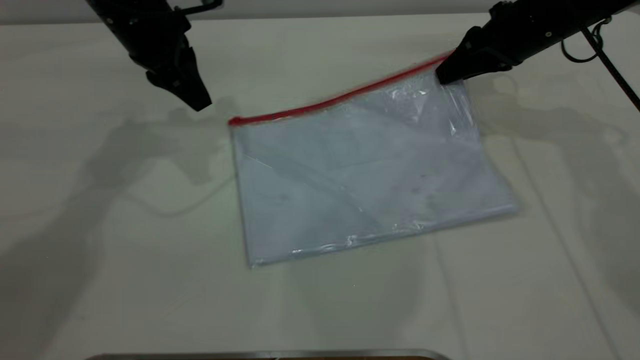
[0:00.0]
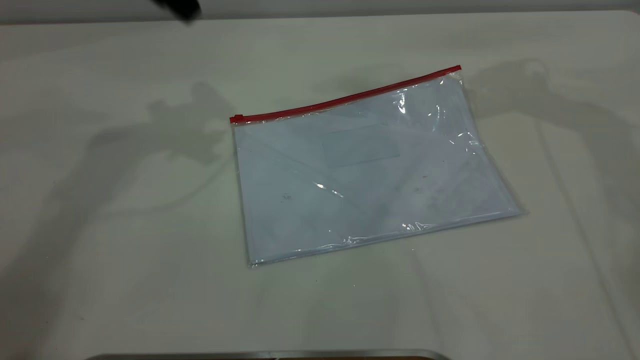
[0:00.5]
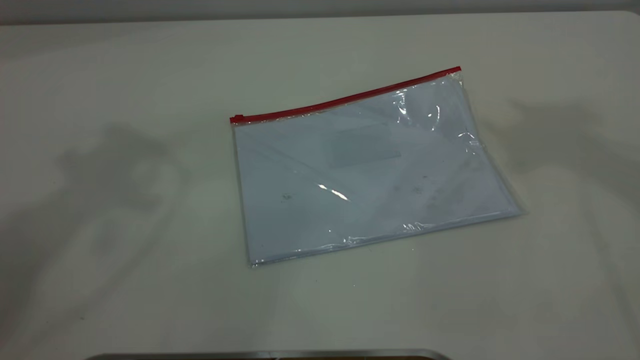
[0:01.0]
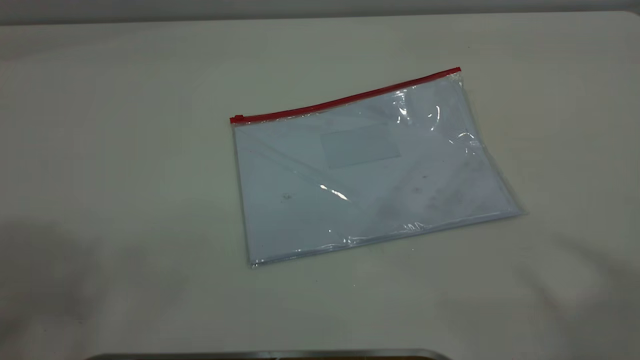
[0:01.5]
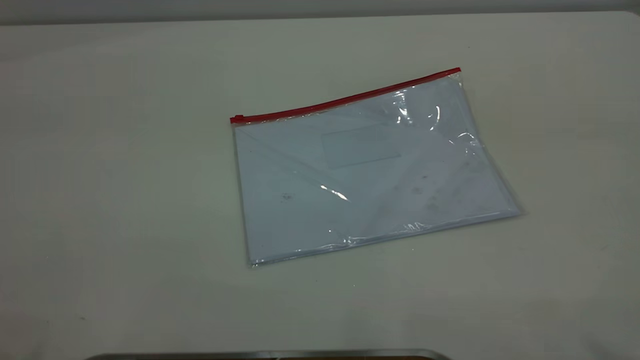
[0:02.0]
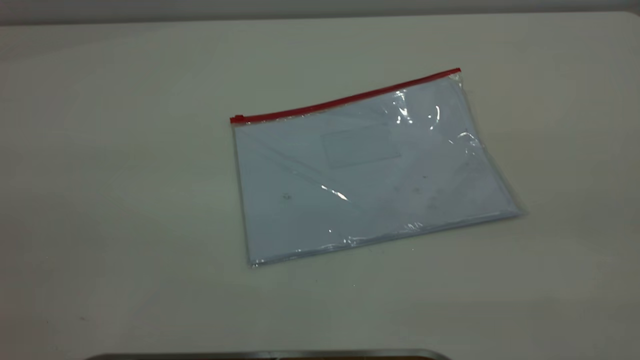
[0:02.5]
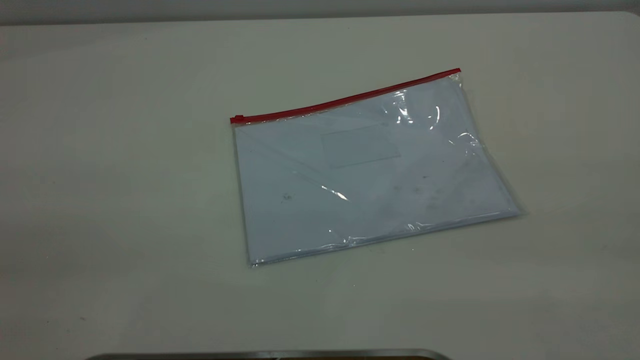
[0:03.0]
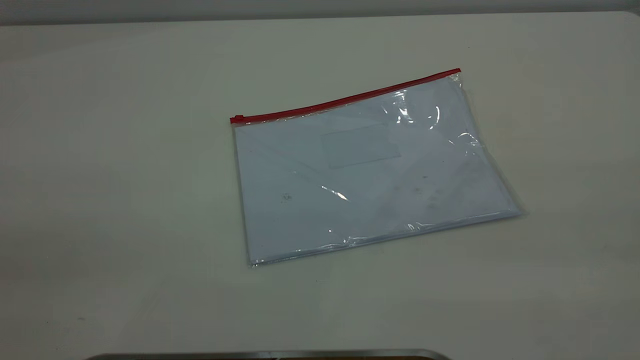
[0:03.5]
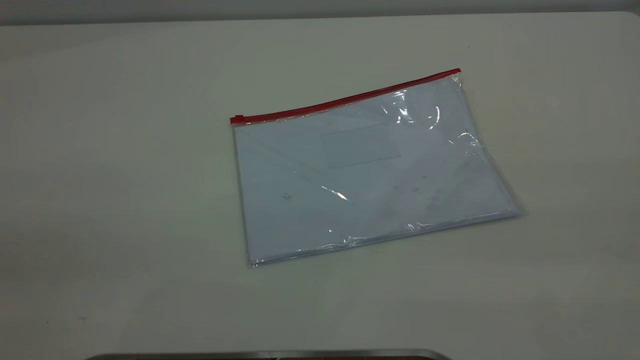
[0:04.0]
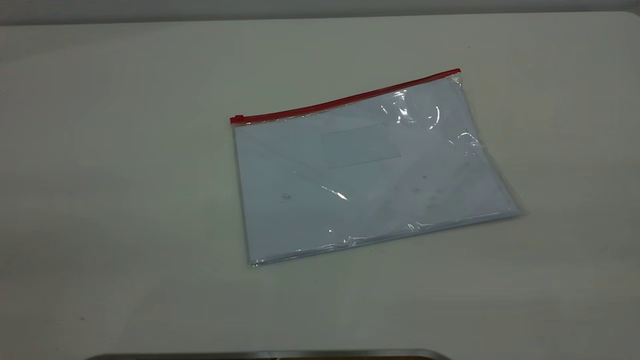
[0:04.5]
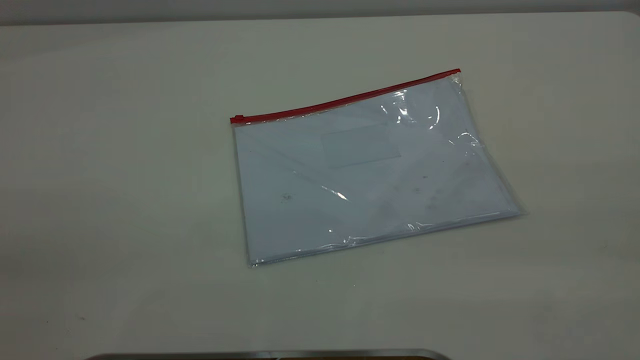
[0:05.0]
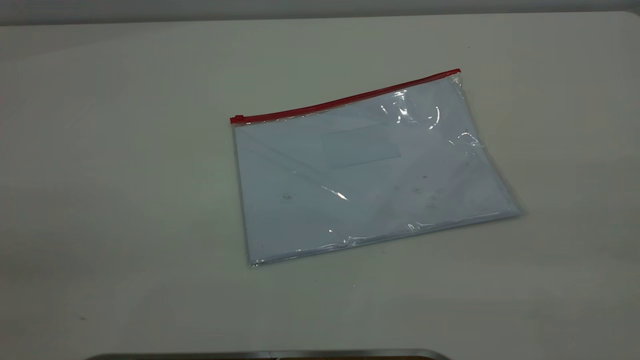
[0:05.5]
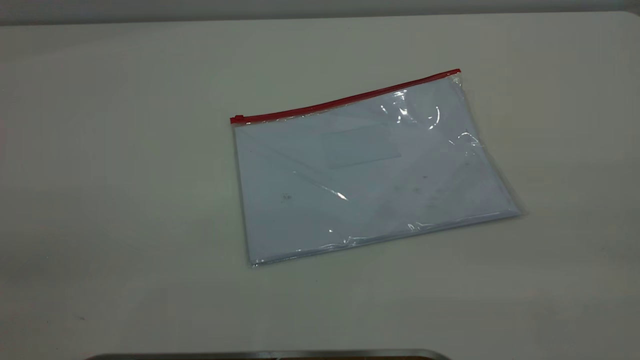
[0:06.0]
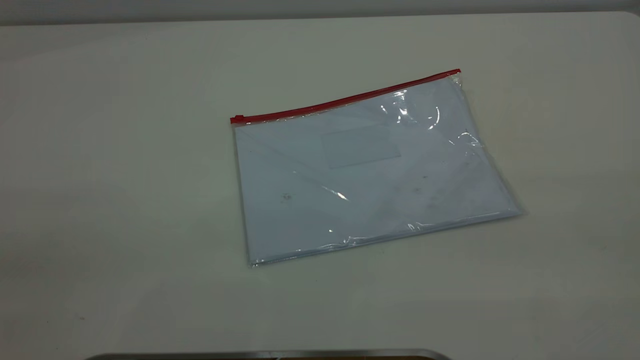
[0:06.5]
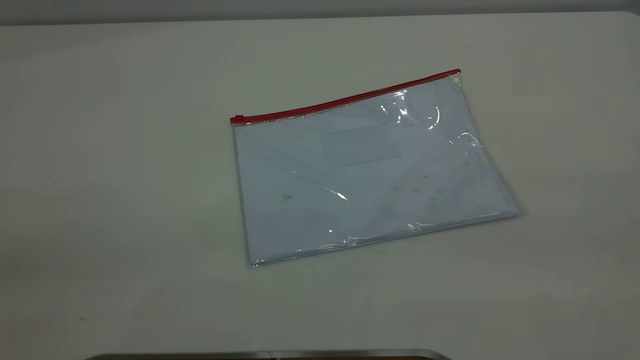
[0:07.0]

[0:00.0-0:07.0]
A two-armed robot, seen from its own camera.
Step, 0:00.0 to 0:00.5: Place the transparent plastic bag.
0:00.0 to 0:02.0: The two grippers go some 50 cm backward and upward. The right gripper opens its fingers; the left gripper opens up.

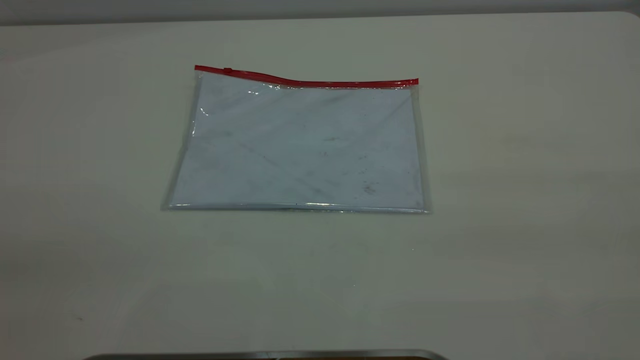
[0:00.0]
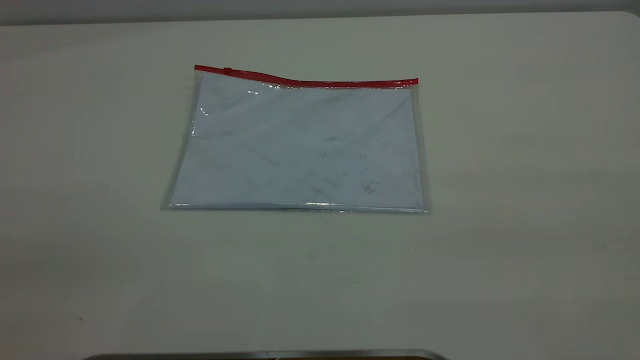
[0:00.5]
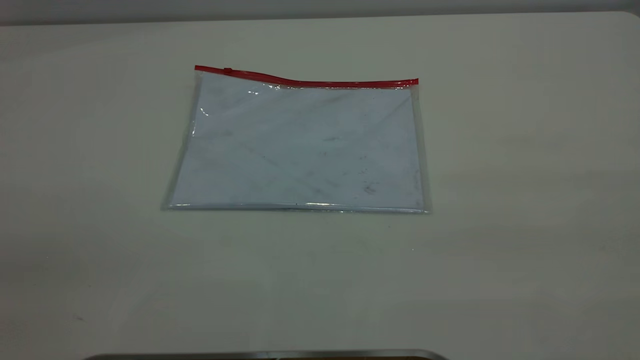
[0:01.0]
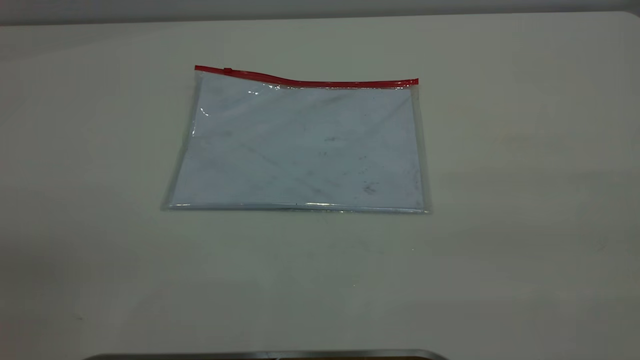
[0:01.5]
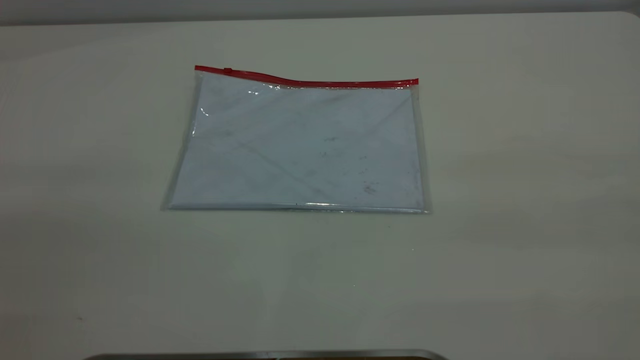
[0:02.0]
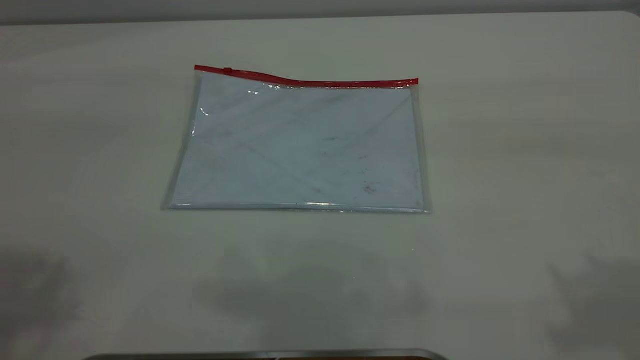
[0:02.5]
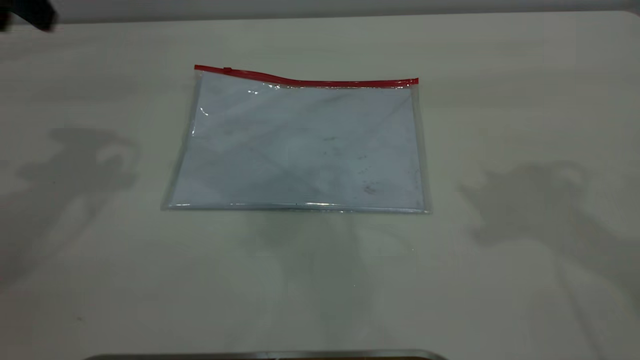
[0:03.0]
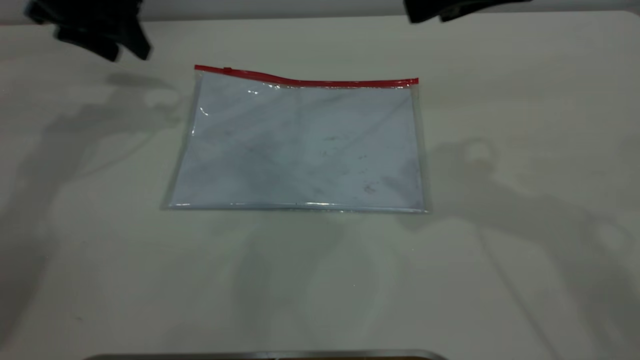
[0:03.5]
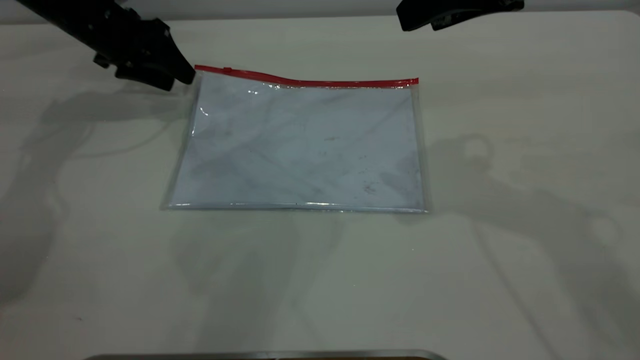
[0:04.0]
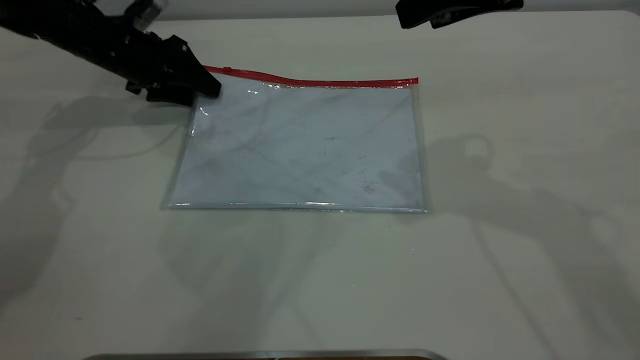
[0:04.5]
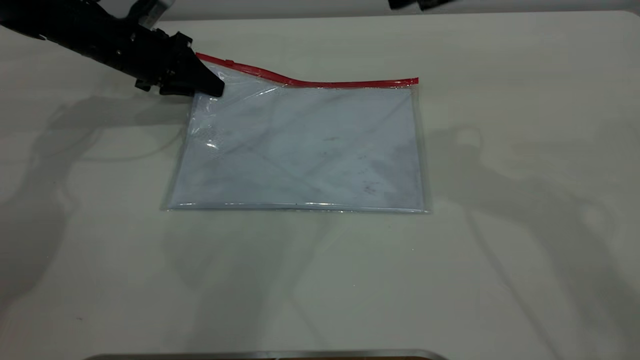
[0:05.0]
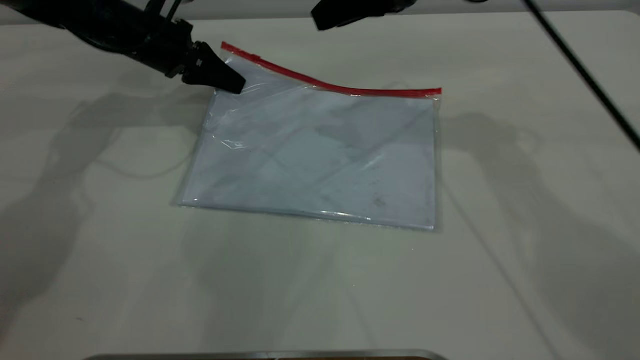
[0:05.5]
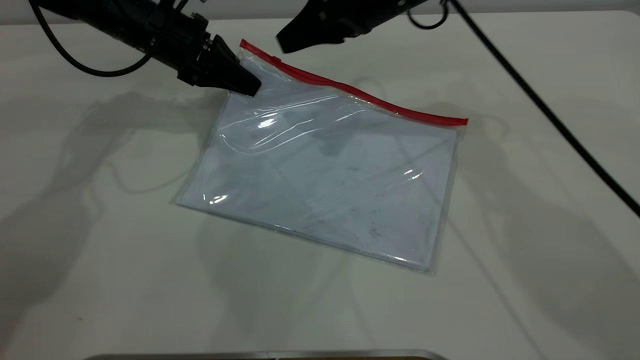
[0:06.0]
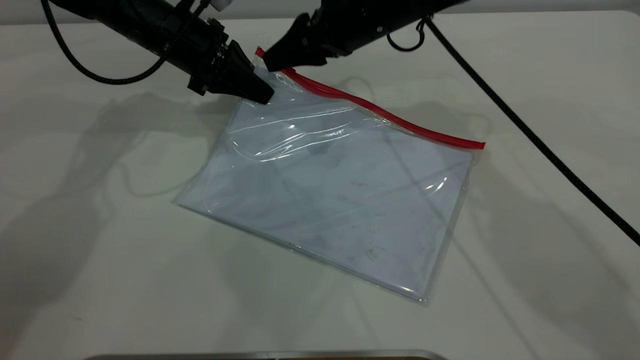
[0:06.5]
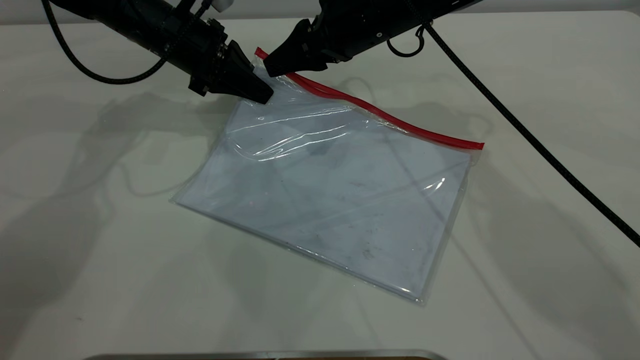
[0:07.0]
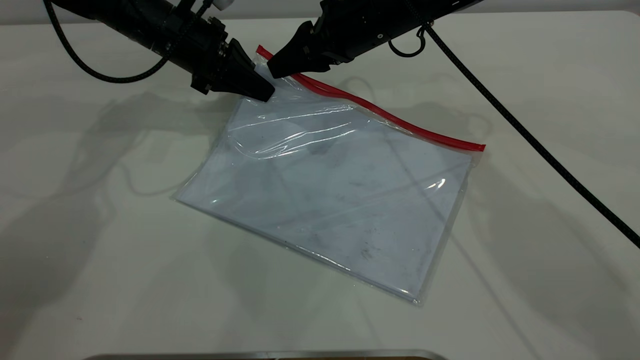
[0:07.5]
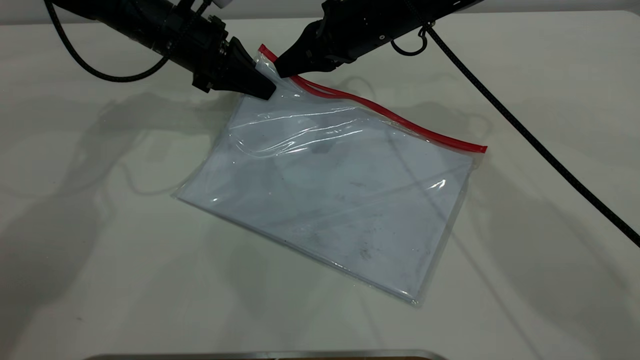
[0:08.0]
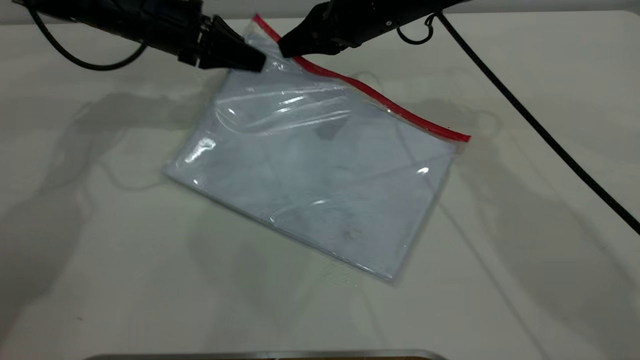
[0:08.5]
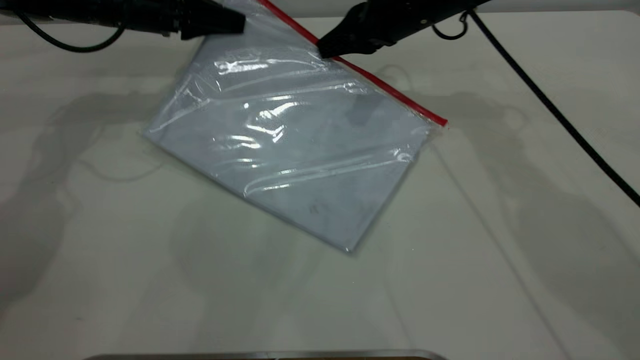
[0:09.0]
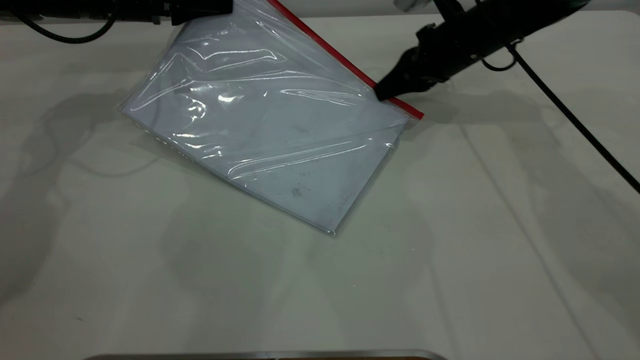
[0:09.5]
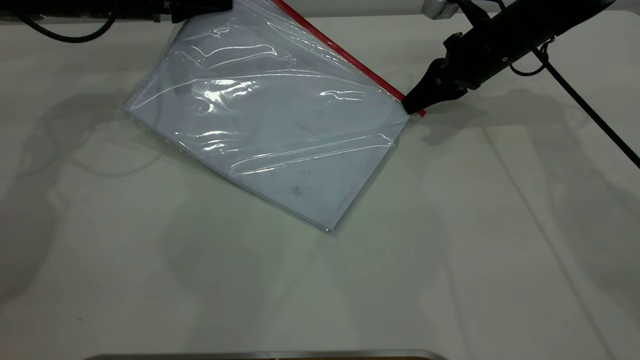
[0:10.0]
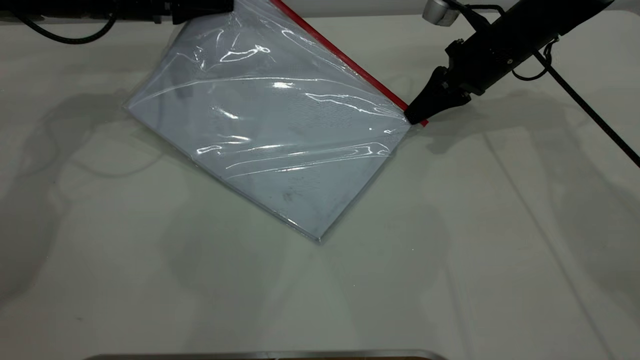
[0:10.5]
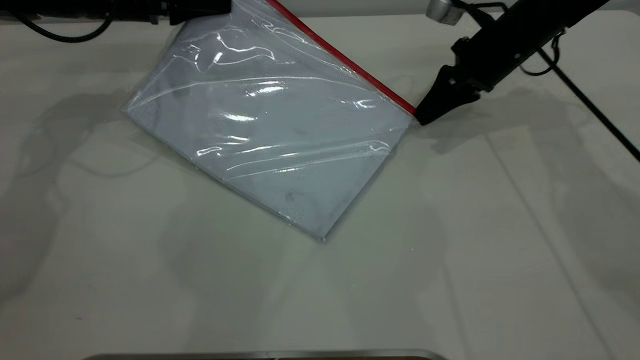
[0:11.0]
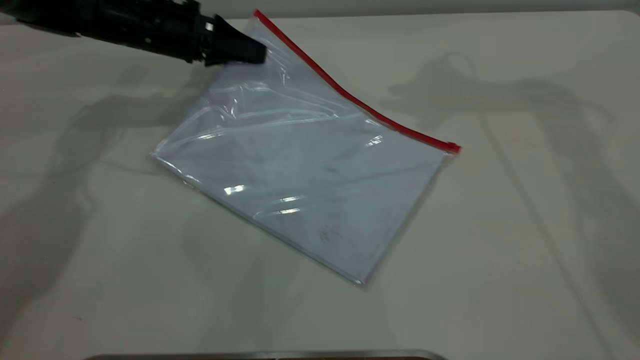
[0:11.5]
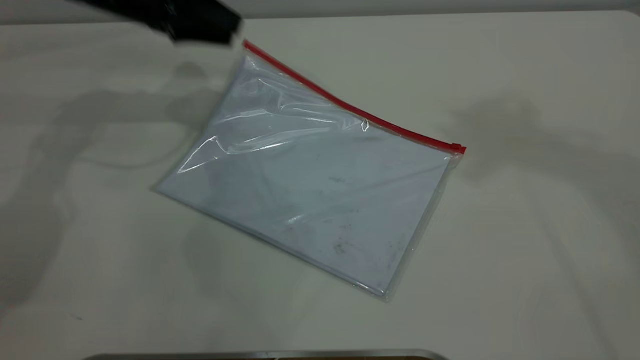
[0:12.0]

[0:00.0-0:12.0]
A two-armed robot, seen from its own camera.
Step, 0:00.0 to 0:05.5: Pick up the transparent plastic bag with the left gripper.
Step, 0:06.0 to 0:11.0: Pulling up the zipper on the transparent plastic bag with the right gripper to close it.
Step, 0:11.5 to 0:12.0: Place the transparent plastic bag.
0:02.0 to 0:04.0: The left gripper is displaced forward and downward by some 60 cm. The right gripper travels forward by roughly 30 cm.
0:04.0 to 0:06.0: The left gripper goes approximately 10 cm to the right, and closes its fingers. Meanwhile the right gripper heads forward, downward and to the left, covering about 20 cm.
0:06.0 to 0:08.0: The right gripper closes.
0:08.0 to 0:10.0: The left gripper is displaced to the left by about 5 cm. The right gripper shifts about 15 cm to the right.
0:10.0 to 0:12.0: The right gripper is displaced upward by about 50 cm, and opens, while the left gripper opens.
